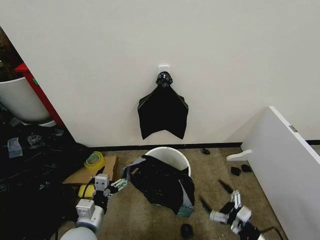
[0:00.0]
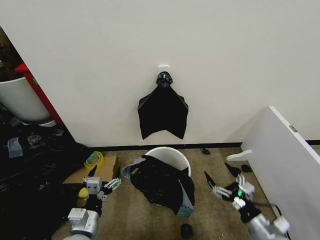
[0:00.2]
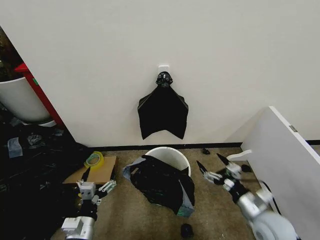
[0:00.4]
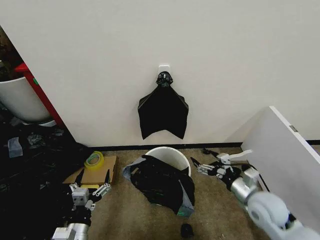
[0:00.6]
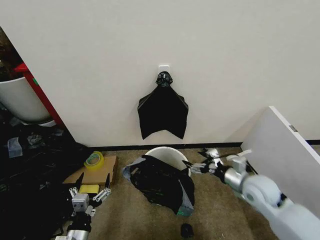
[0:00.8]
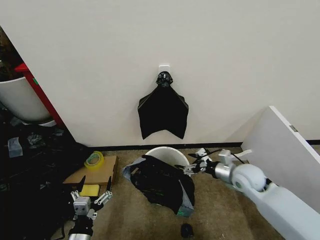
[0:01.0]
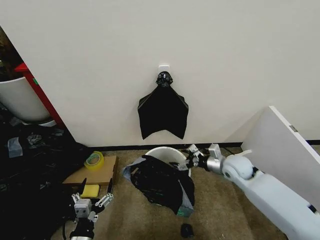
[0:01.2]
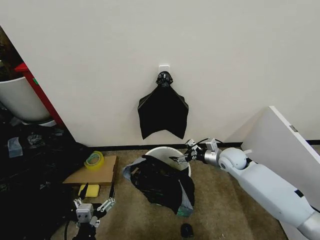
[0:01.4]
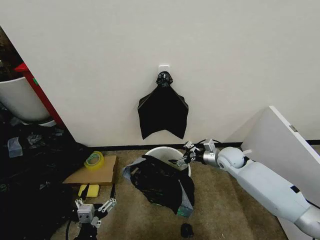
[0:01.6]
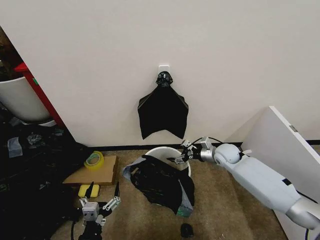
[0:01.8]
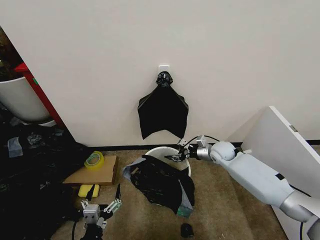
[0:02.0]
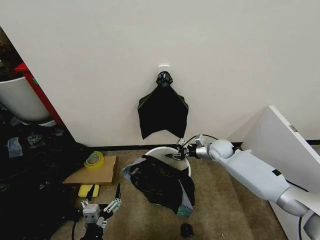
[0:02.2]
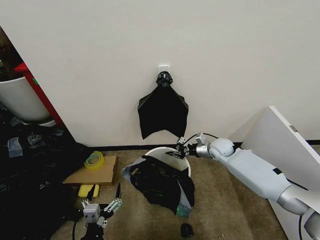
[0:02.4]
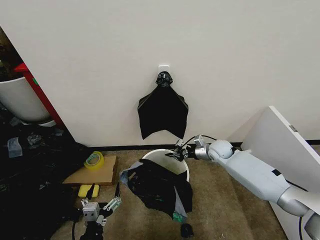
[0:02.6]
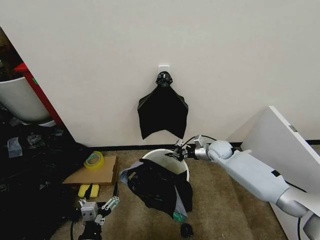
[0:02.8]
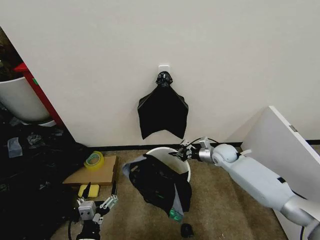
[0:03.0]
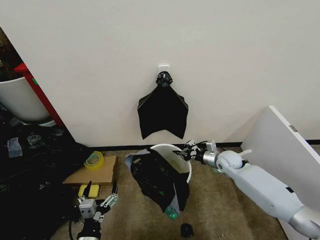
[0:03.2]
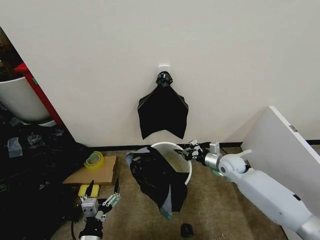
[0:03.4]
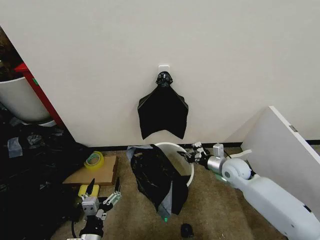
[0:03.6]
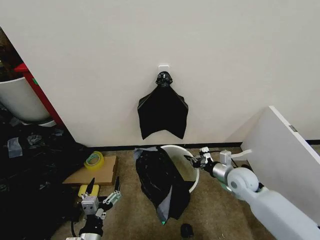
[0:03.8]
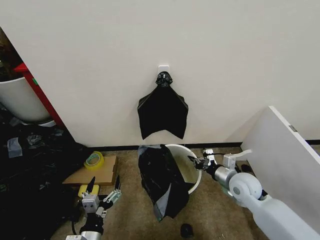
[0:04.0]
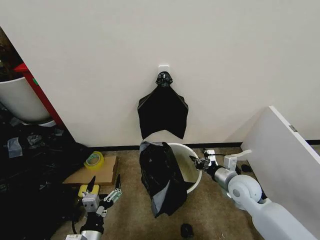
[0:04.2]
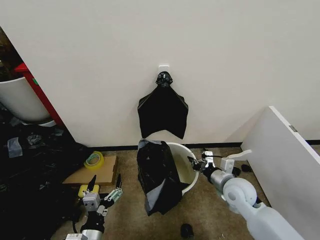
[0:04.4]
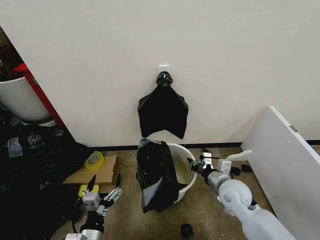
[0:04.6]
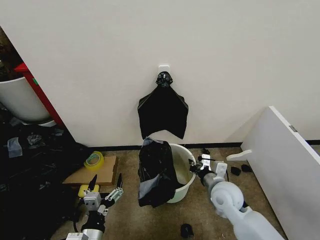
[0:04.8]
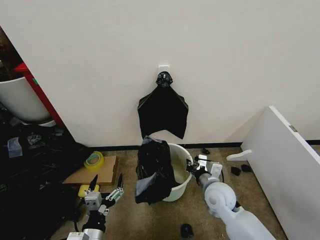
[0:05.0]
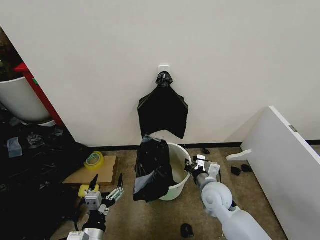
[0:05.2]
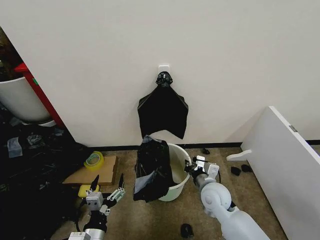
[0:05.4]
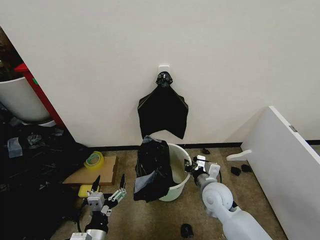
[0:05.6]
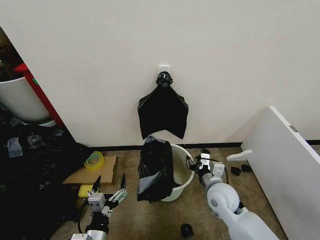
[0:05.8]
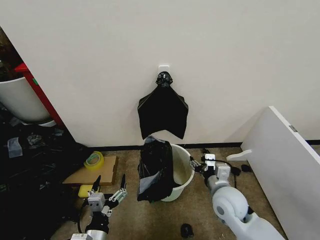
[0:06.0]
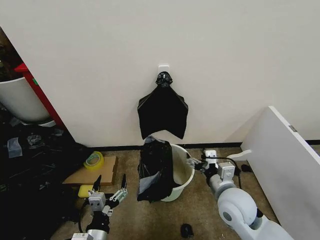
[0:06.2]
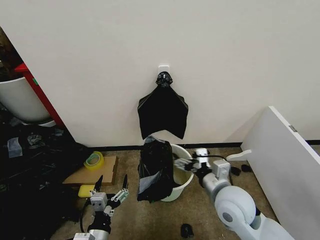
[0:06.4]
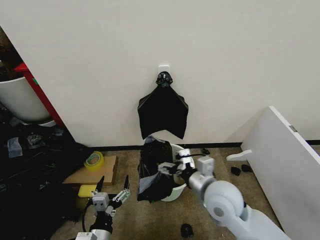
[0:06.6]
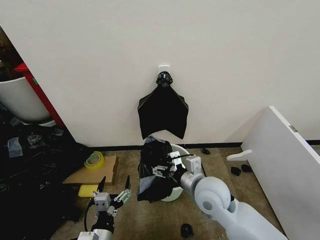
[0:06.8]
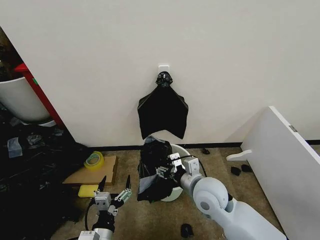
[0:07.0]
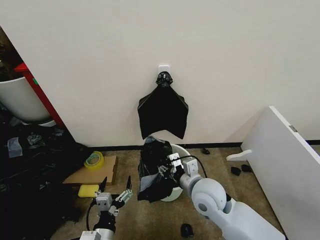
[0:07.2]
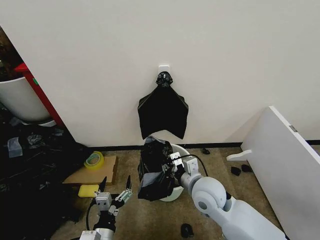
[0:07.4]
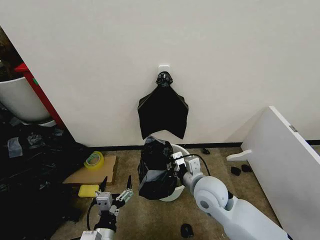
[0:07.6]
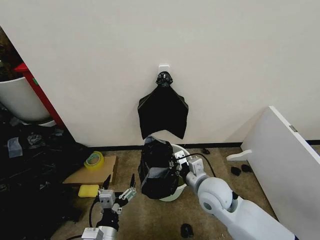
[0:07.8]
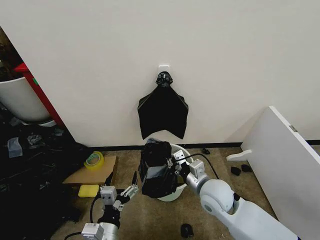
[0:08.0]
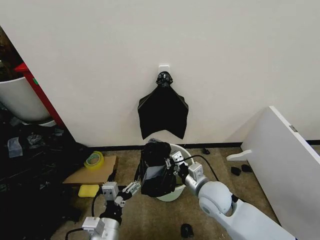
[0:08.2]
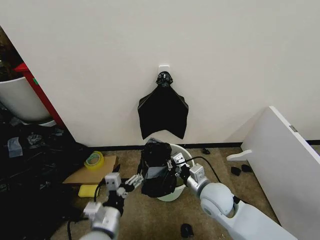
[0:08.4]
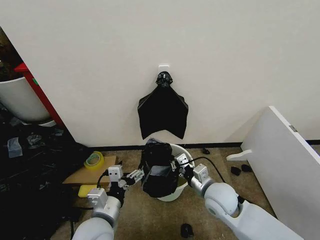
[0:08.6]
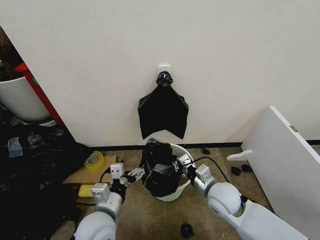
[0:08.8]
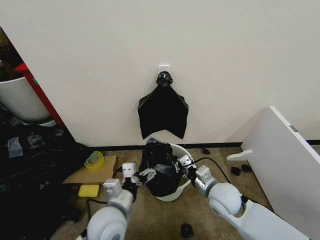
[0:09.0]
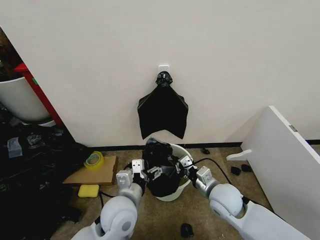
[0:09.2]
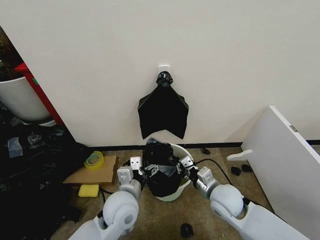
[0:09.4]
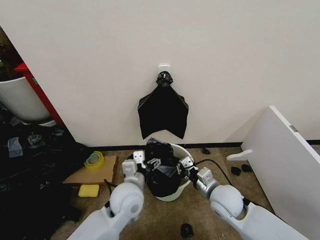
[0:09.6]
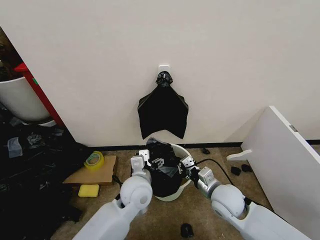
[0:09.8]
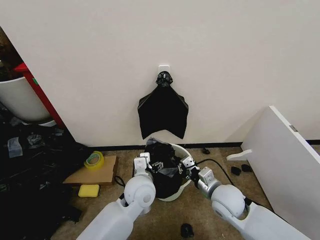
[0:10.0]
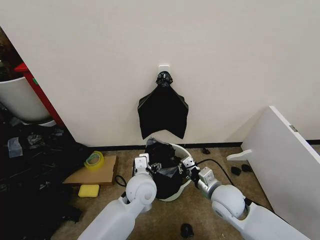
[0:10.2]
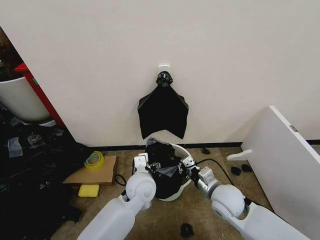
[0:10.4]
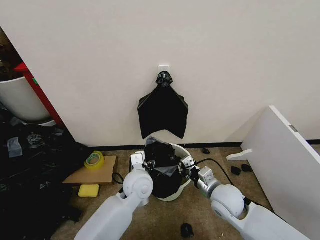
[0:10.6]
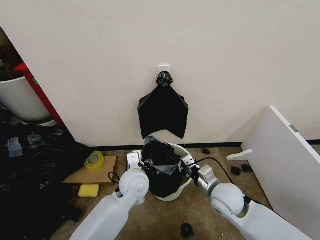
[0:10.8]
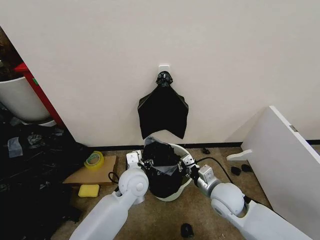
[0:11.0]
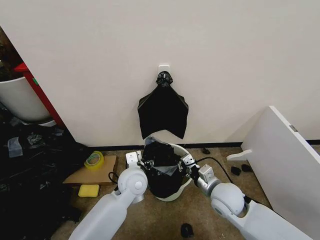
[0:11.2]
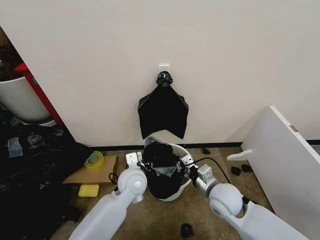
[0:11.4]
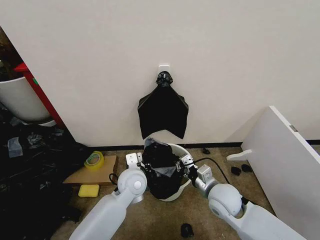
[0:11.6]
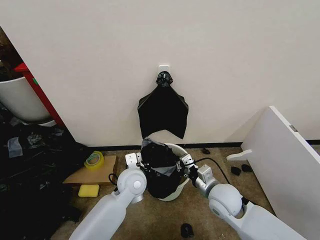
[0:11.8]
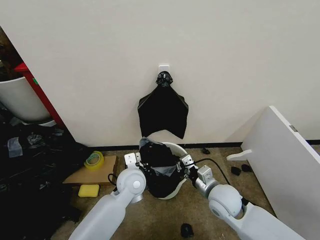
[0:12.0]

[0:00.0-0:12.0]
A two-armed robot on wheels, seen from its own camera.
Task of the whole recording: Place the garbage bag over the trash bin.
0:00.0 to 0:01.6: The left gripper moves backward and downward, about 10 cm; the right gripper is displaced forward by approximately 35 cm.
0:01.6 to 0:03.0: The right gripper closes up.
0:03.0 to 0:04.4: The right gripper shifts about 20 cm backward.
0:04.4 to 0:06.0: The right gripper heads to the left, covering some 5 cm, and opens up.
0:06.0 to 0:07.6: The right gripper heads to the left, covering approximately 5 cm, and closes its fingers.
0:07.6 to 0:09.0: The right gripper goes roughly 10 cm to the right and downward. Meanwhile the left gripper is displaced forward and upward by roughly 15 cm.
0:09.0 to 0:10.4: The left gripper heads forward and to the right, covering about 15 cm.
0:10.4 to 0:12.0: The left gripper closes up.

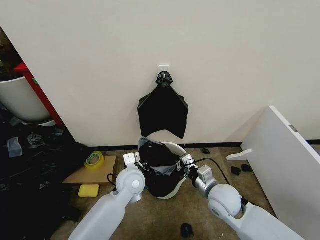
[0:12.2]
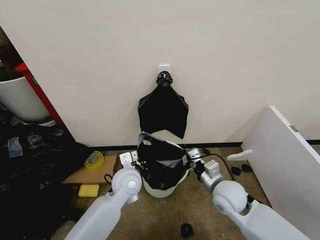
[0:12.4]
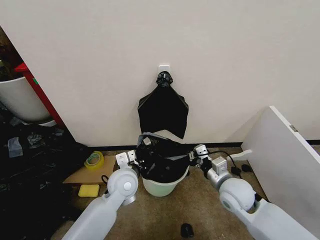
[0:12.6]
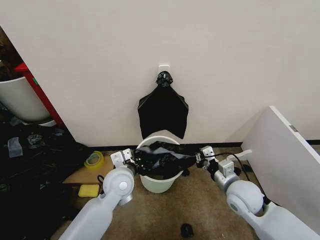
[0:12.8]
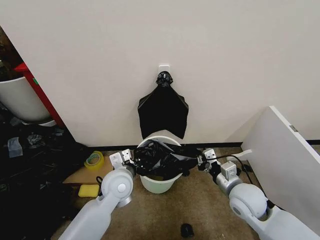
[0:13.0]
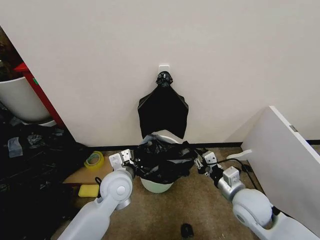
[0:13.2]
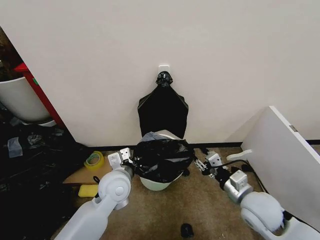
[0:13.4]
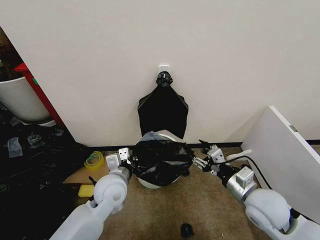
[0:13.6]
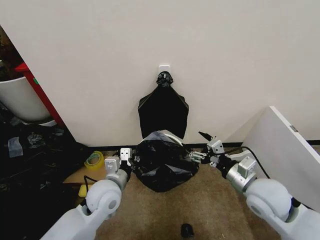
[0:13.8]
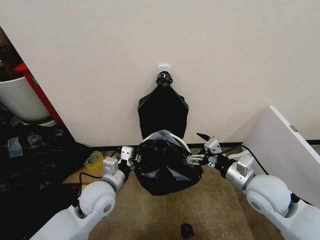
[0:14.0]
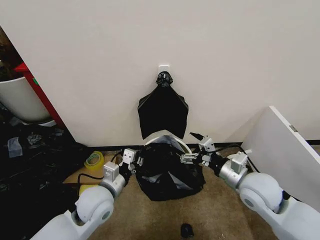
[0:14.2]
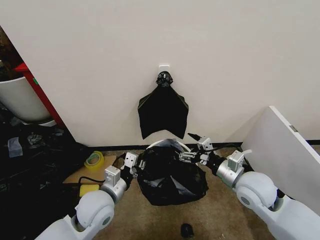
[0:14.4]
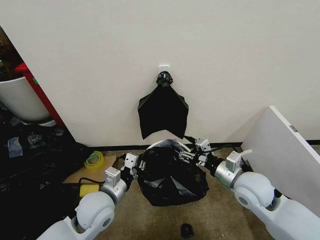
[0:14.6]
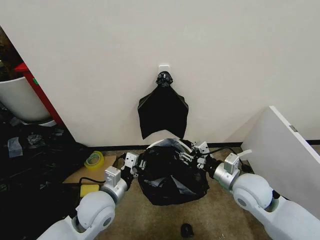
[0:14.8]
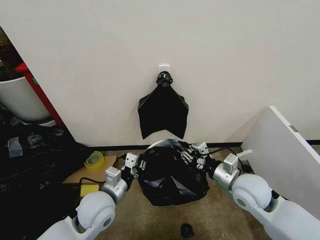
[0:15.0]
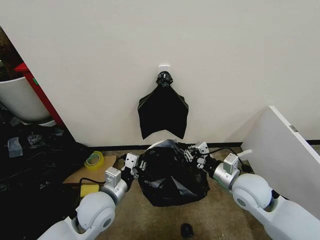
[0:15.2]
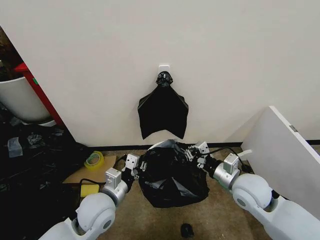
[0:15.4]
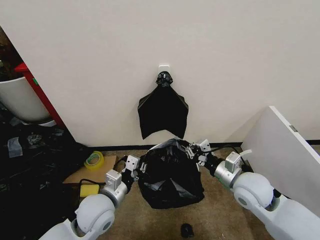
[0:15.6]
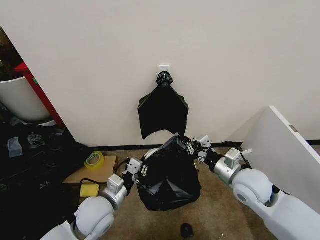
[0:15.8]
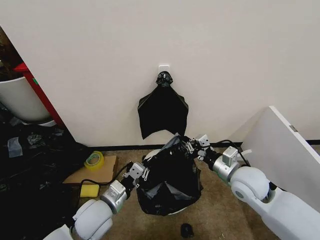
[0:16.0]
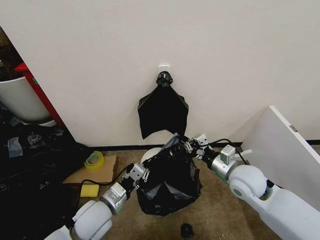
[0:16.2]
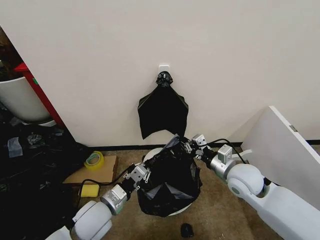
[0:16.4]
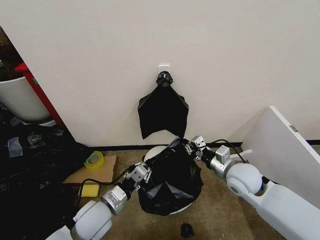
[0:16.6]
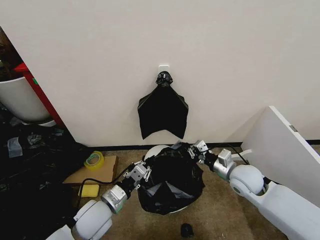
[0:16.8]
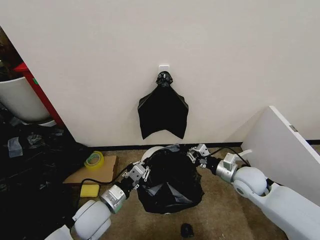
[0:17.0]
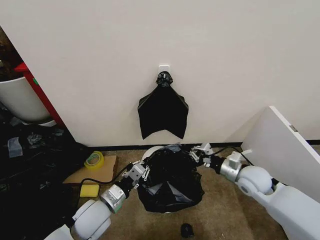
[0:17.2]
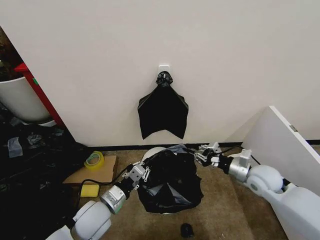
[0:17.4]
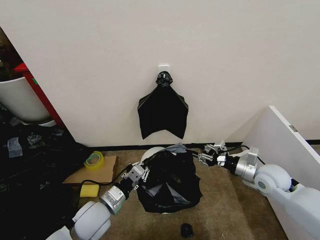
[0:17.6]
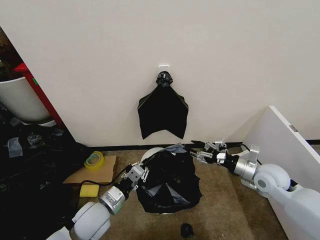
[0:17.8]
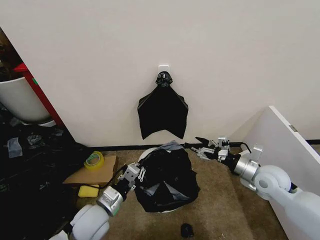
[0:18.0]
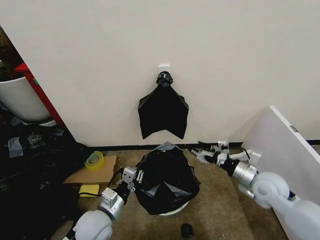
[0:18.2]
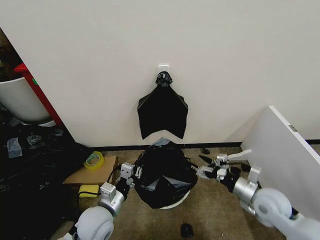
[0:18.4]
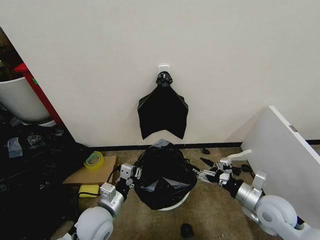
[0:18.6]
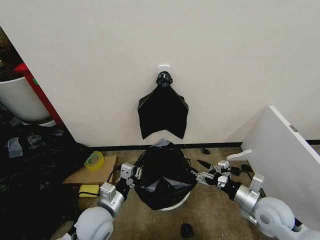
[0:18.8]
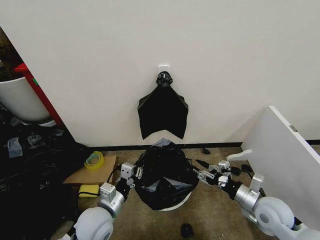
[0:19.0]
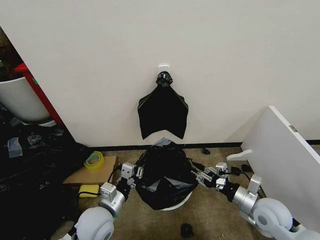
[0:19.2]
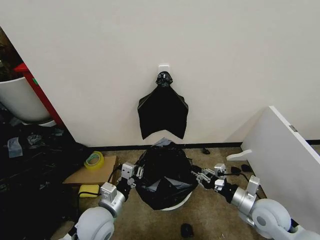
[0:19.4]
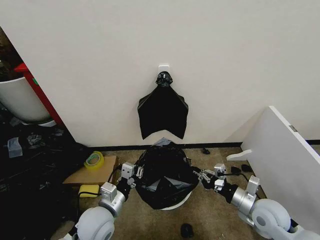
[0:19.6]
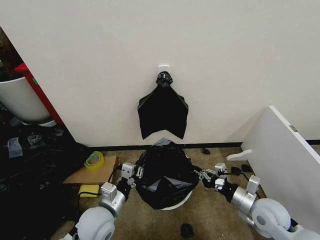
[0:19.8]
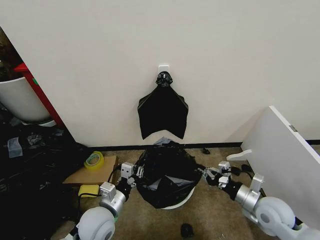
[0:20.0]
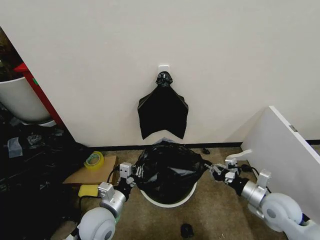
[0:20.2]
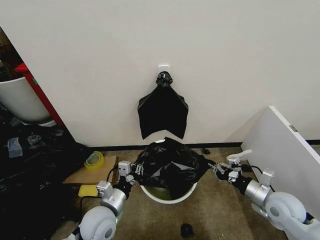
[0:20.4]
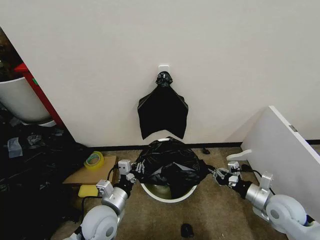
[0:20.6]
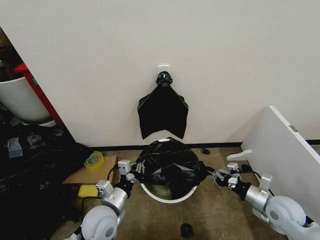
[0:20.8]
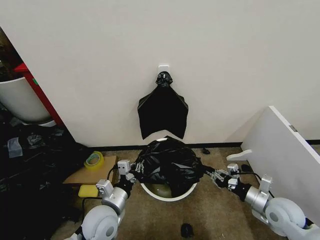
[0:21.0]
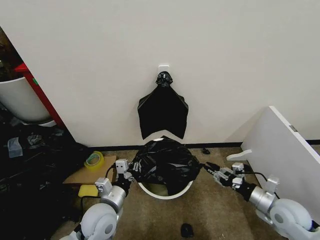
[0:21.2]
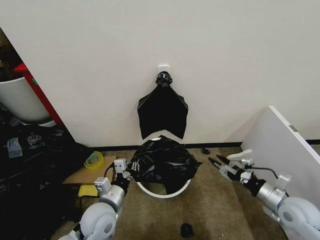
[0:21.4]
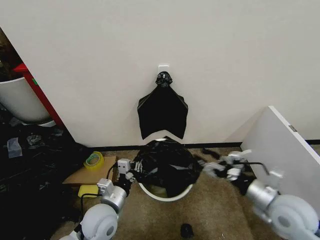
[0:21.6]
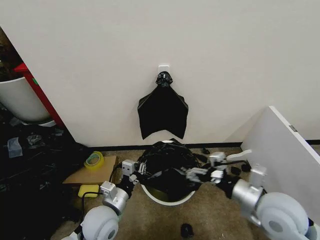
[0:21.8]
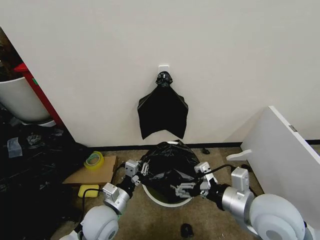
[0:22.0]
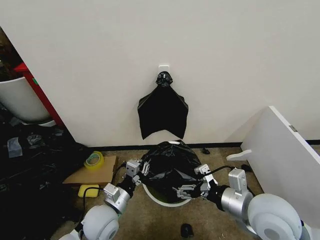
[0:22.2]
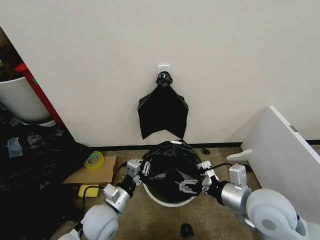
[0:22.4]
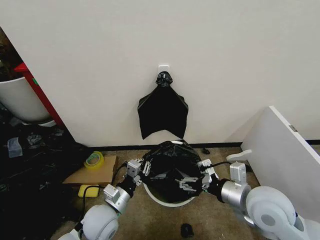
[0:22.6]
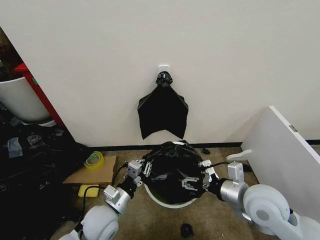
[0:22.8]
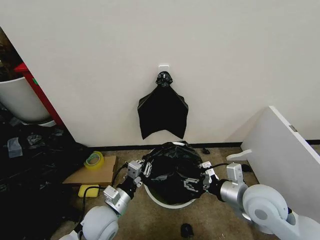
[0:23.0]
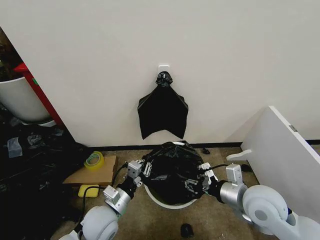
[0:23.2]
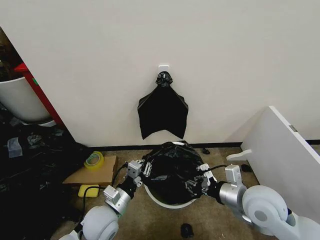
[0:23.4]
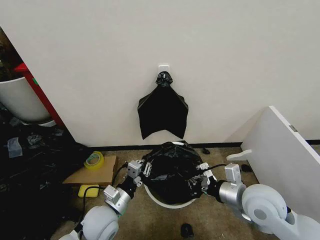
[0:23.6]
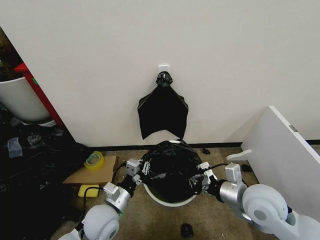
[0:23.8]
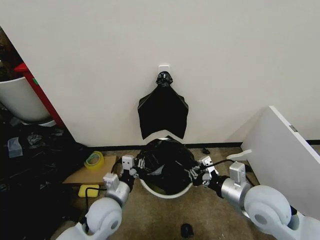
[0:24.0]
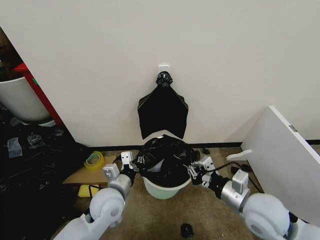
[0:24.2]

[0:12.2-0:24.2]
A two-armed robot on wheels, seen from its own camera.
Task of the whole recording: Place the garbage bag over the trash bin.
0:12.2 to 0:13.8: The left gripper is displaced to the left and backward by about 10 cm, while the right gripper is displaced upward and to the right by approximately 10 cm, and opens its fingers.
0:13.8 to 0:15.2: The right gripper closes up.
0:16.6 to 0:18.2: The right gripper moves to the right, approximately 10 cm, and opens.
0:18.2 to 0:19.8: The right gripper heads backward, covering about 5 cm, and closes.
0:19.8 to 0:21.2: The right gripper shifts about 5 cm to the right.
0:21.2 to 0:22.6: The right gripper shifts about 20 cm to the left and upward, and opens up.
0:22.6 to 0:24.2: The left gripper ends up approximately 5 cm from where it was. Meanwhile the right gripper closes up.
